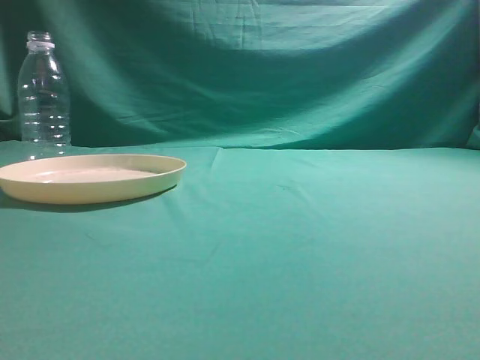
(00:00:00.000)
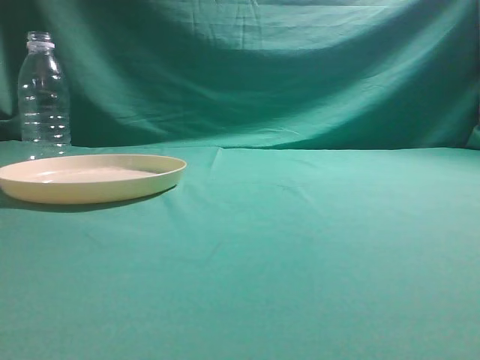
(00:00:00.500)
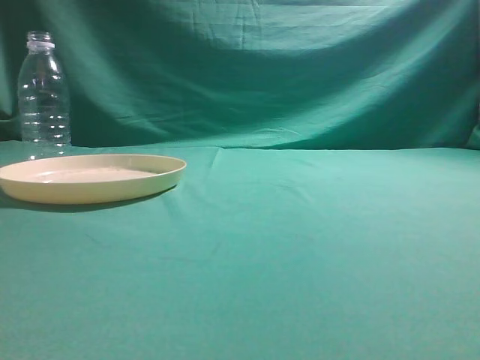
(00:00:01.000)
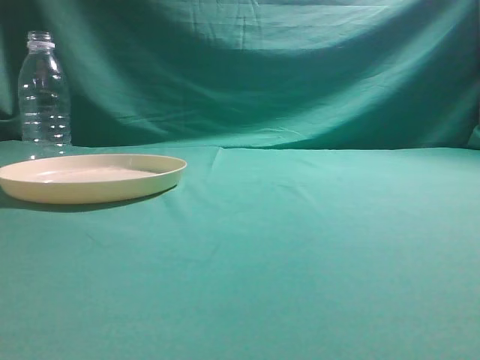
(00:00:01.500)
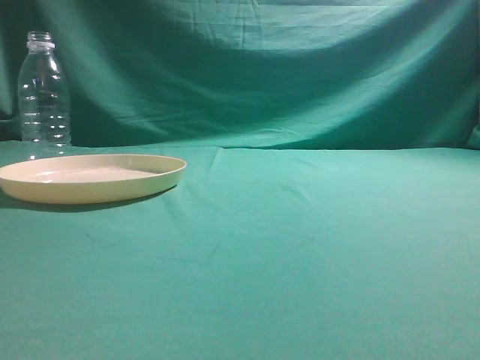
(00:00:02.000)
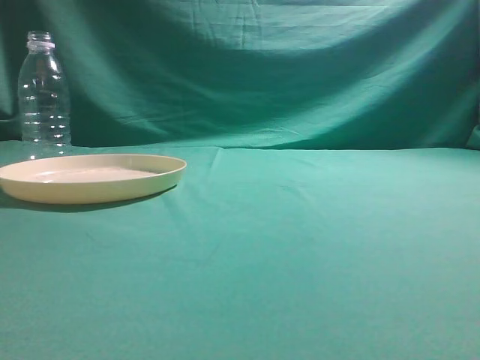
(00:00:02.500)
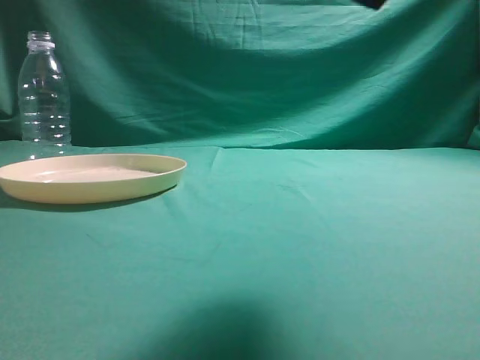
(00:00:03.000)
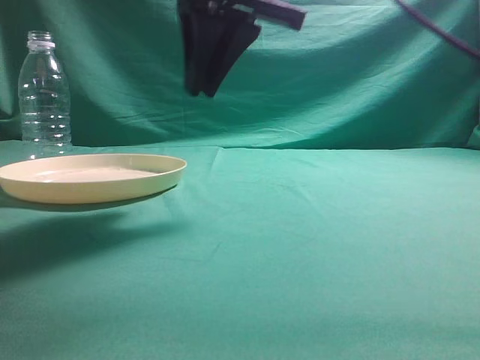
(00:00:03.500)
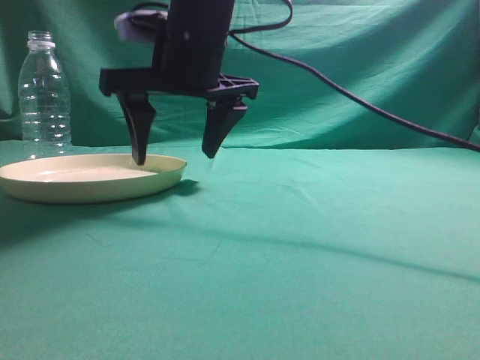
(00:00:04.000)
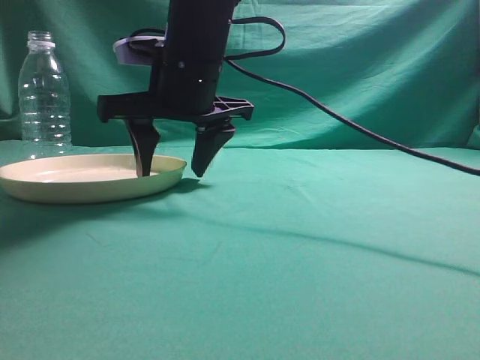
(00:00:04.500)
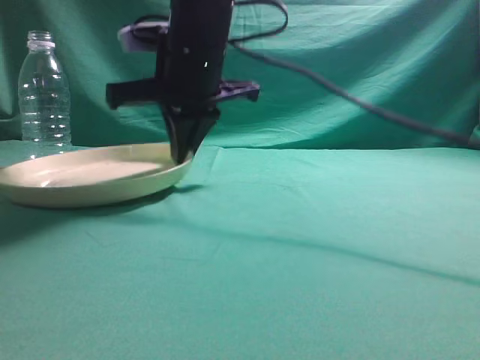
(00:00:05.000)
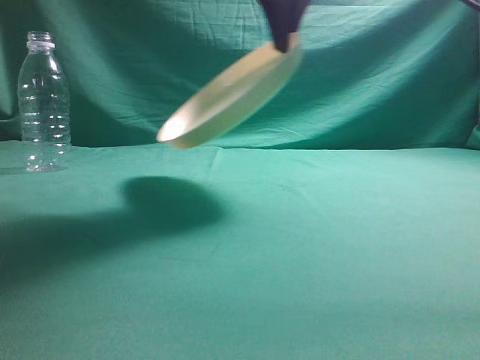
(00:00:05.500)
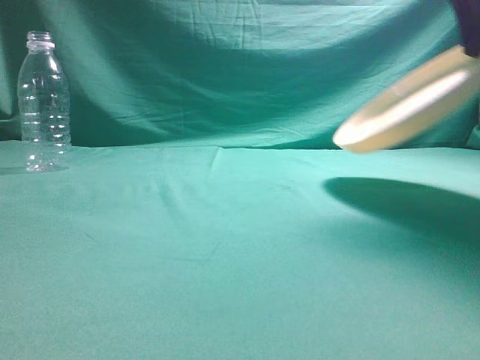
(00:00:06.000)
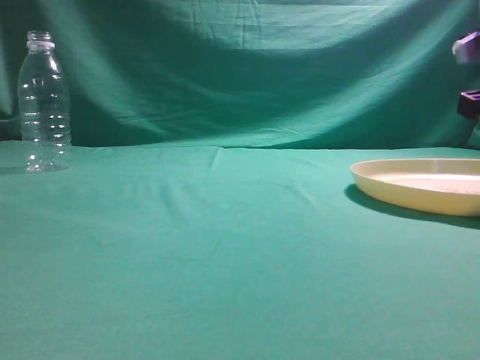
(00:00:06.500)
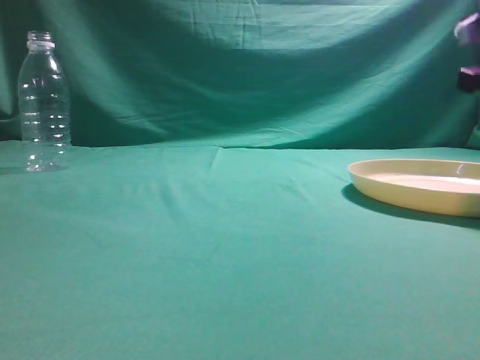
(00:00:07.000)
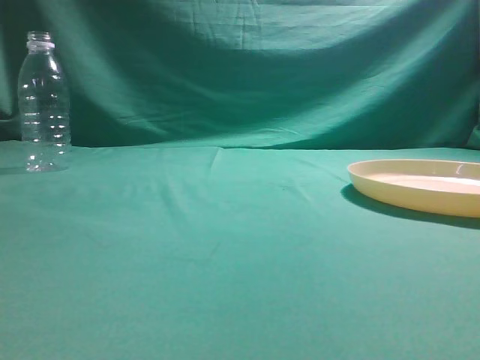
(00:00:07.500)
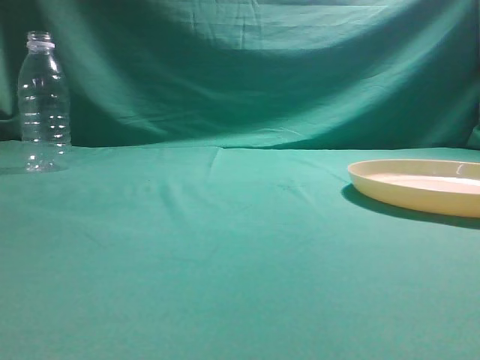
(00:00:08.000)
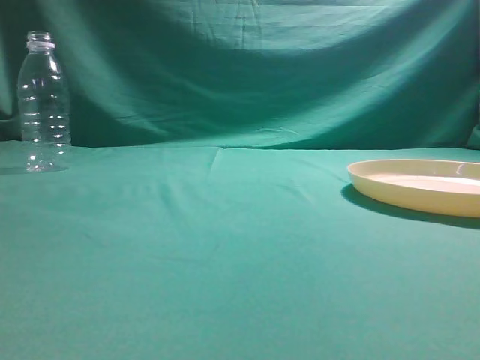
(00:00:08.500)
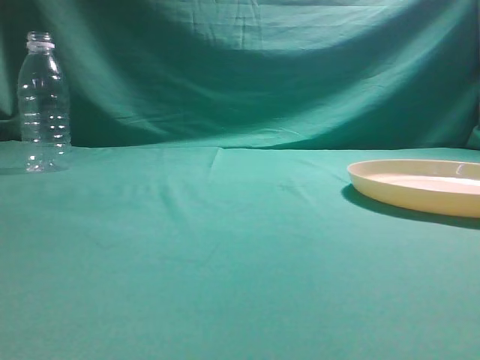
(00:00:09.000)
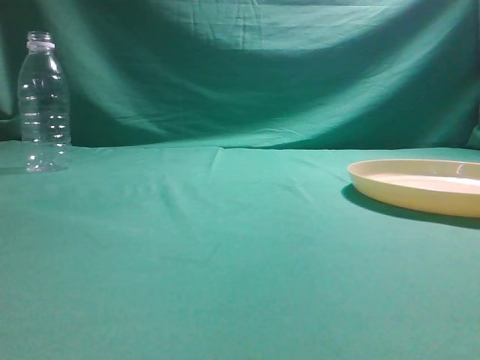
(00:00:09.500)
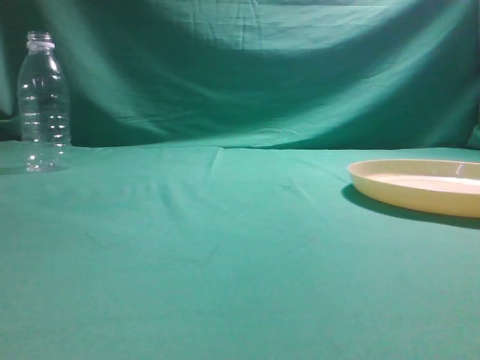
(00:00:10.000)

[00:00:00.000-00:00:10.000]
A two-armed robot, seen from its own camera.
Step, 00:00:00.000 to 00:00:05.000: Pick the container that can hold fruits.
Step, 00:00:05.500 to 00:00:07.000: Move the picked object to the right side of the table.
00:00:02.000 to 00:00:04.000: The right gripper moves to the left and forward, approximately 40 cm, and opens its fingers.
00:00:04.000 to 00:00:06.000: The right gripper travels to the right and upward by roughly 25 cm, and closes its fingers.
00:00:06.000 to 00:00:08.000: The right gripper moves backward, approximately 25 cm, and opens, then closes once more.
